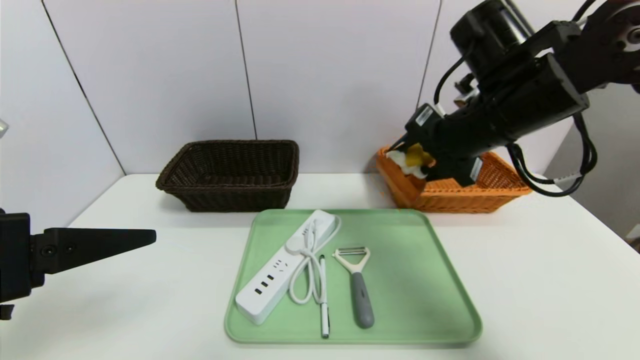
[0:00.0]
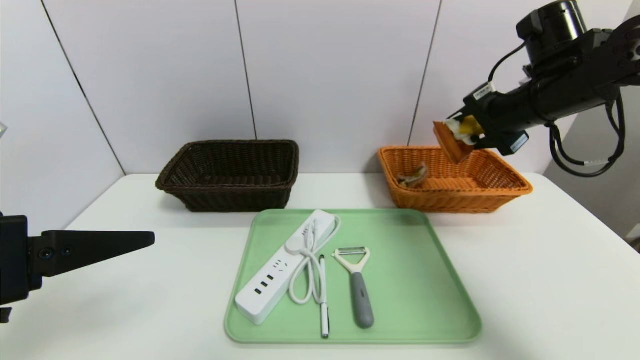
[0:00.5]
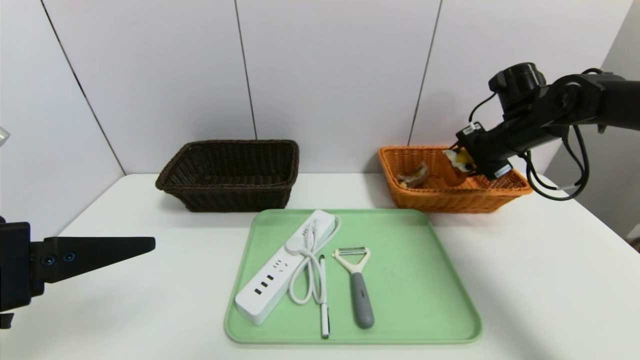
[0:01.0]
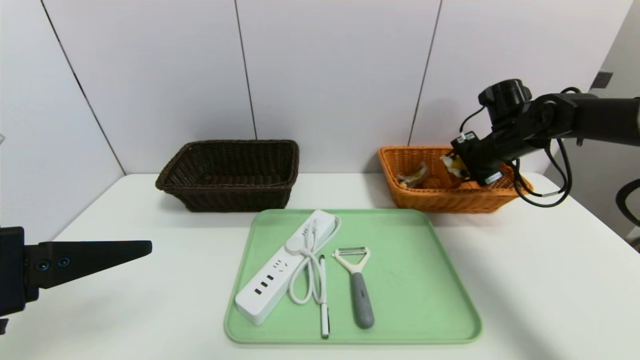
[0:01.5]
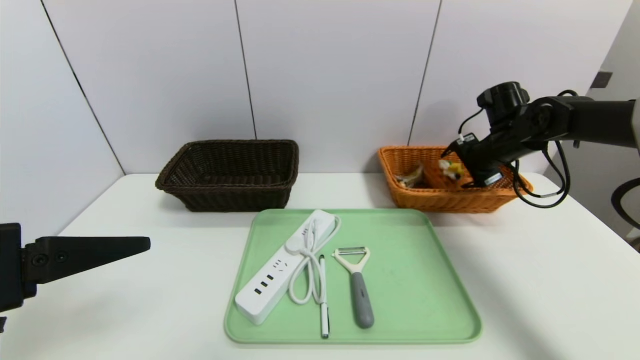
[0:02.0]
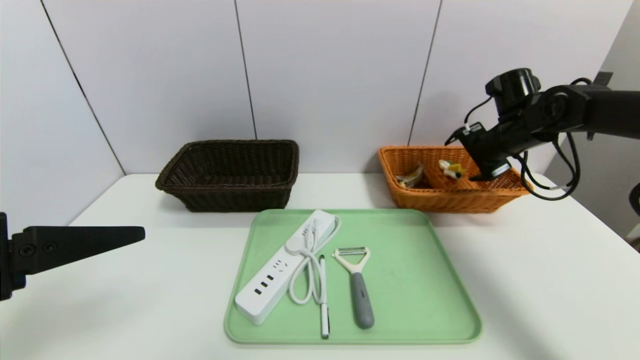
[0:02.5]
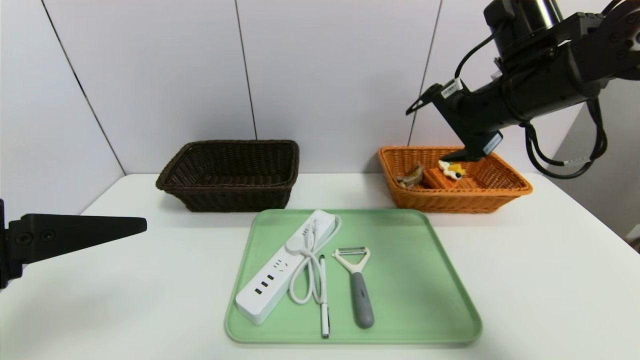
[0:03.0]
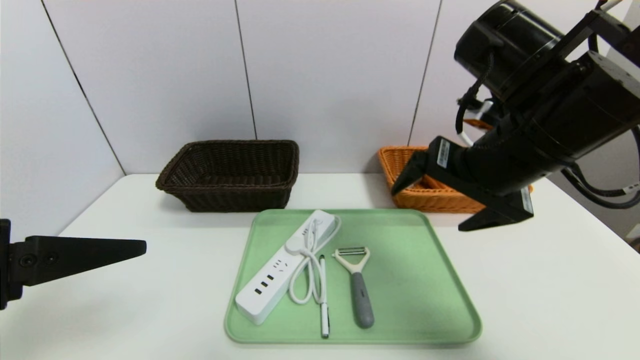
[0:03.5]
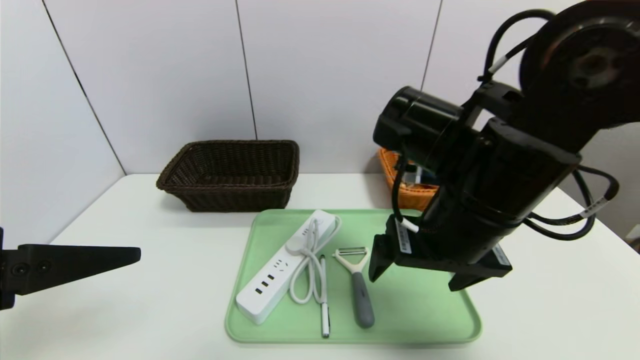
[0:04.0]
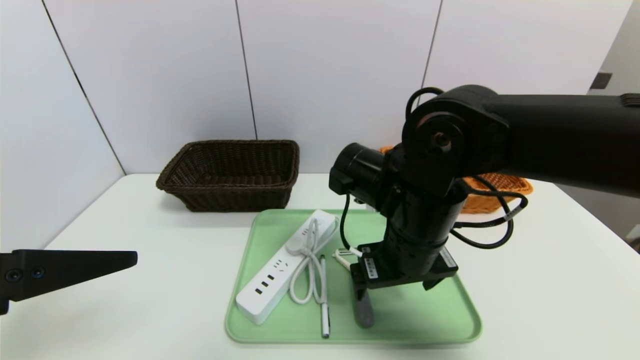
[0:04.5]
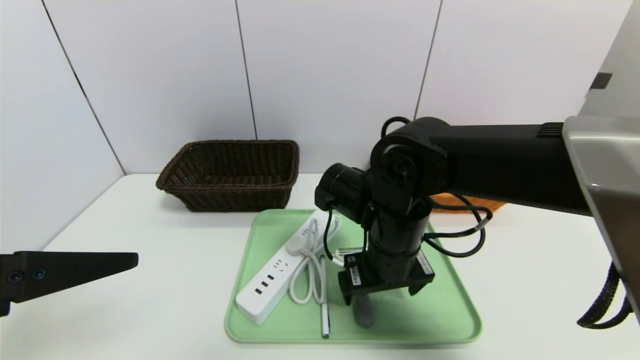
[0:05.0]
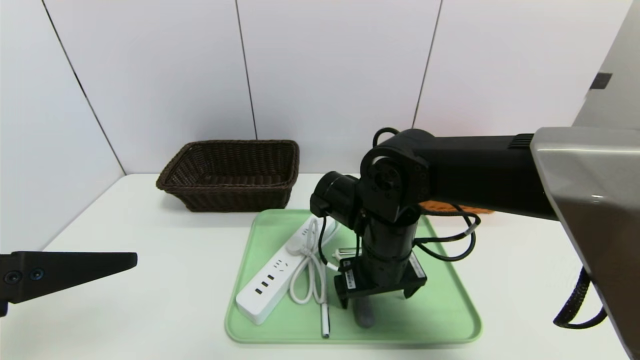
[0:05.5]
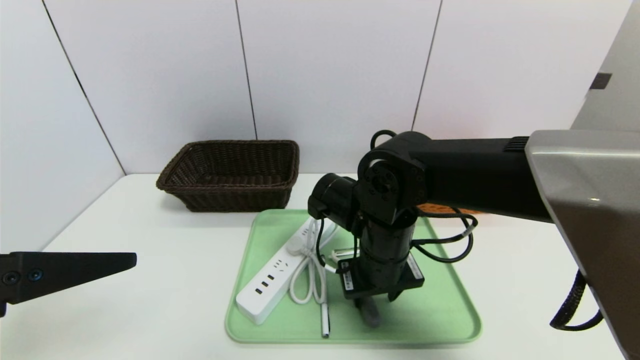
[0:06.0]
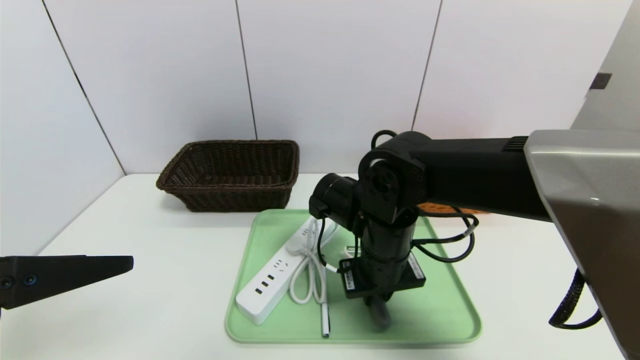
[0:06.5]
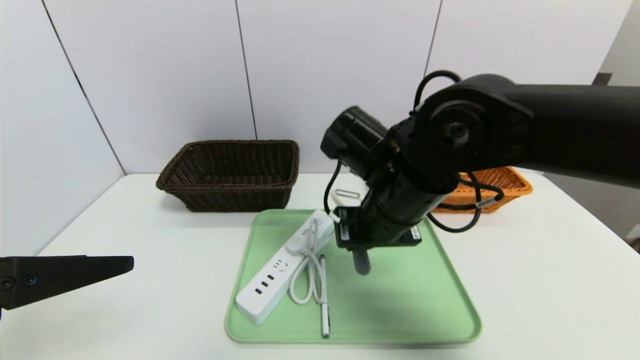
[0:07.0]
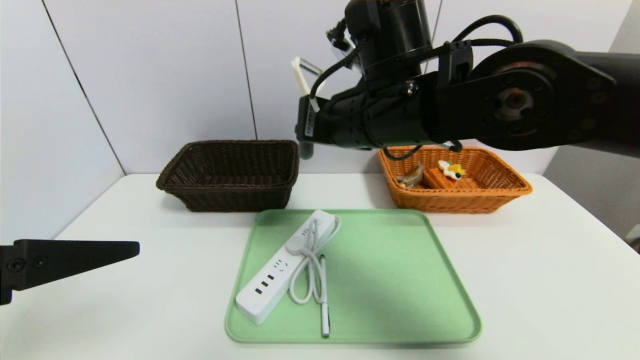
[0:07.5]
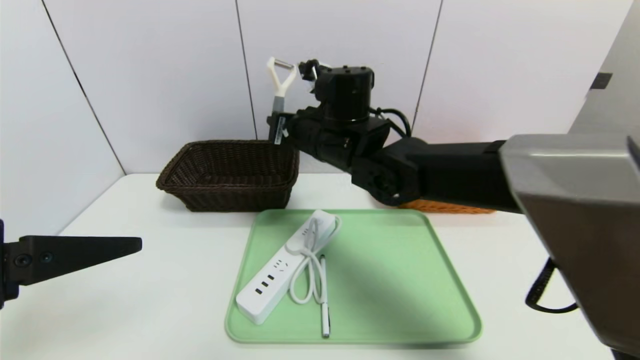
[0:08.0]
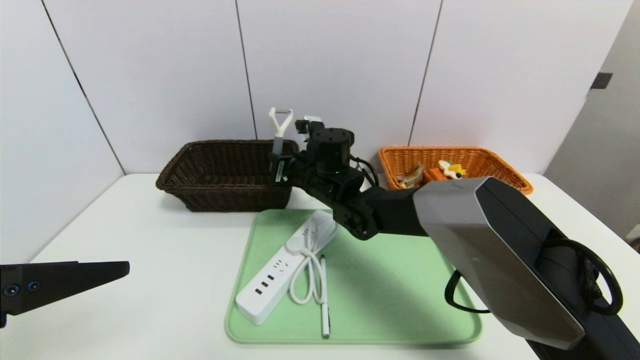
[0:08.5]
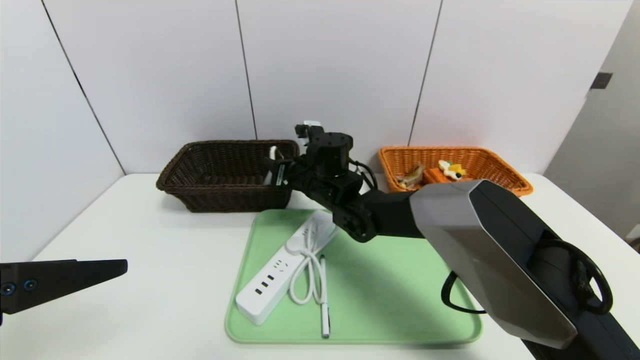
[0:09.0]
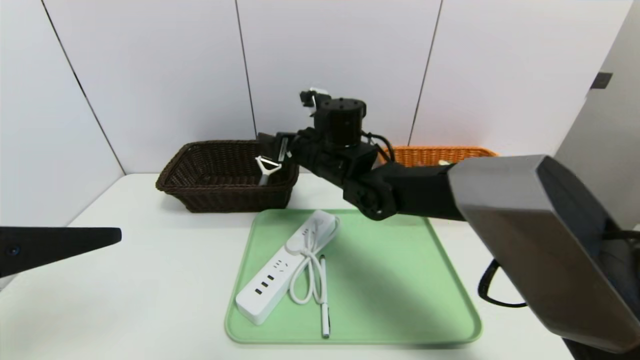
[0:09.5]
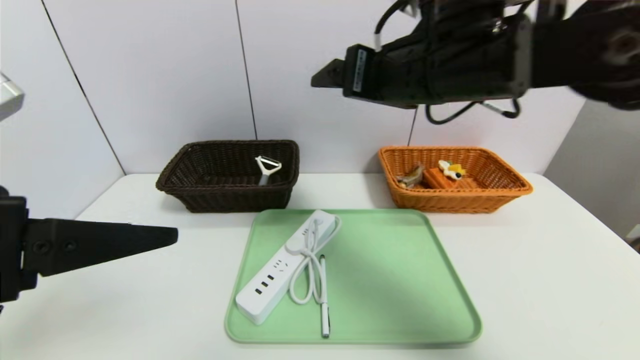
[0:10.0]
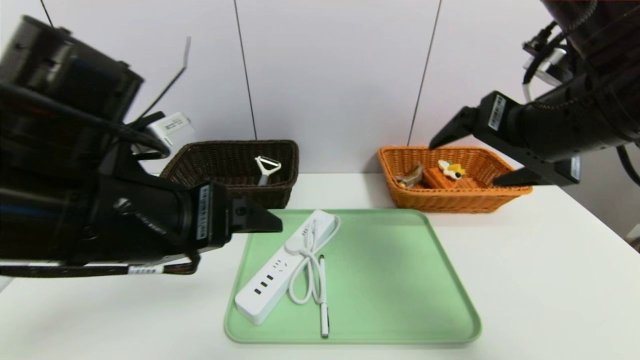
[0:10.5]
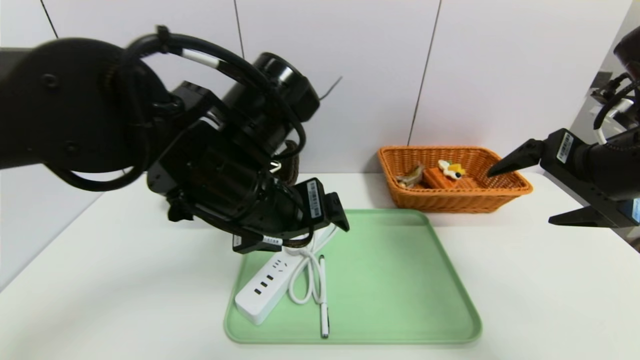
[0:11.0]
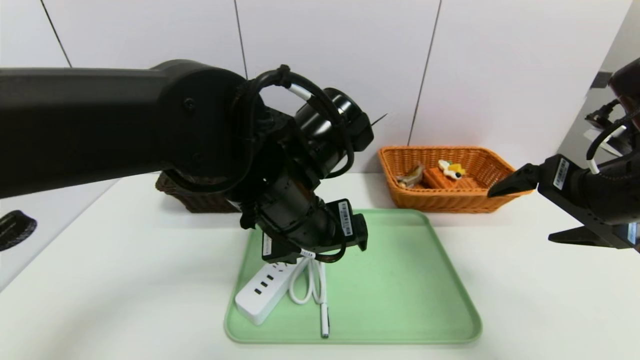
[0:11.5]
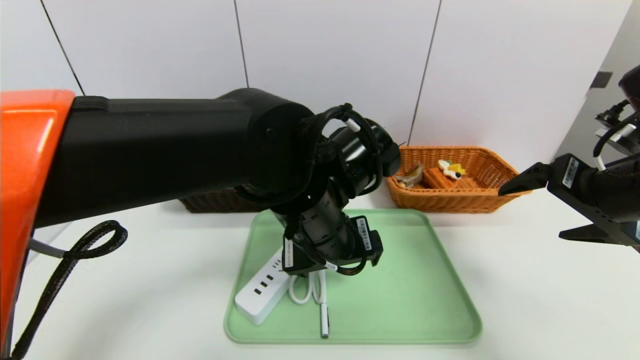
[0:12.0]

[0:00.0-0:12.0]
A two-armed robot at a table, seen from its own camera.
Task of the whole recording: place the food in the right basket with the right gripper, and place the non food items in the left basket with the left gripper.
Step, 0:00.0 to 0:02.0: Grasp the waffle and put it in the right basket.
0:00.0 to 0:02.0: The right gripper shifts some 25 cm forward, to the right and downward.
0:02.0 to 0:04.0: The right gripper goes about 30 cm backward and to the left.
0:04.0 to 0:06.0: The right gripper is displaced downward, to the left and forward by about 10 cm, and closes up.
0:06.0 to 0:08.0: The right gripper is displaced forward, upward and to the left by roughly 15 cm.
0:08.0 to 0:10.0: The right gripper heads upward, to the right and backward, covering approximately 20 cm, and opens.
0:10.0 to 0:12.0: The left gripper goes some 25 cm to the right and forward, while the right gripper travels to the right and downward by roughly 20 cm.

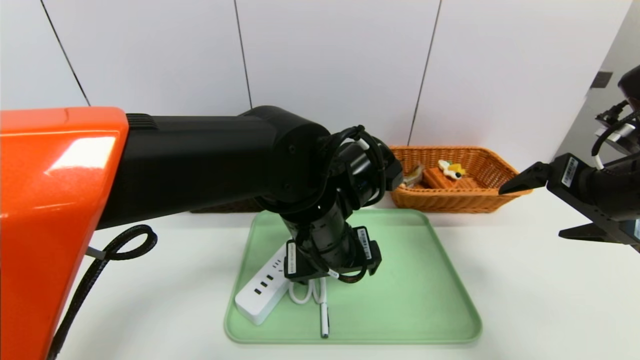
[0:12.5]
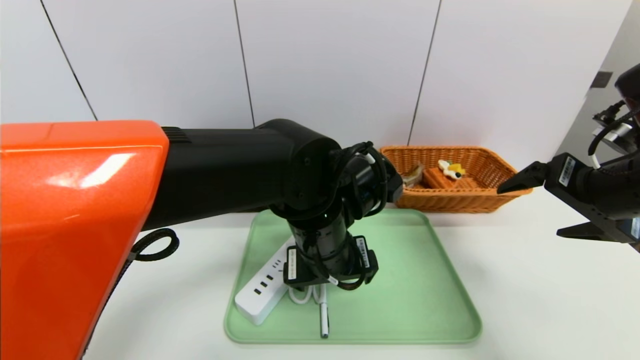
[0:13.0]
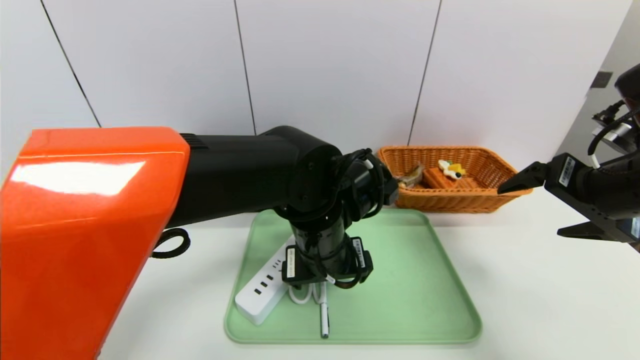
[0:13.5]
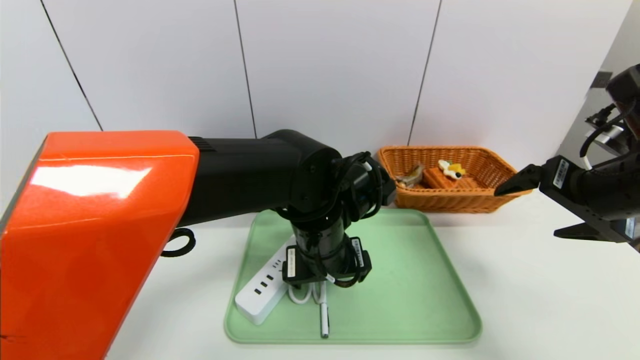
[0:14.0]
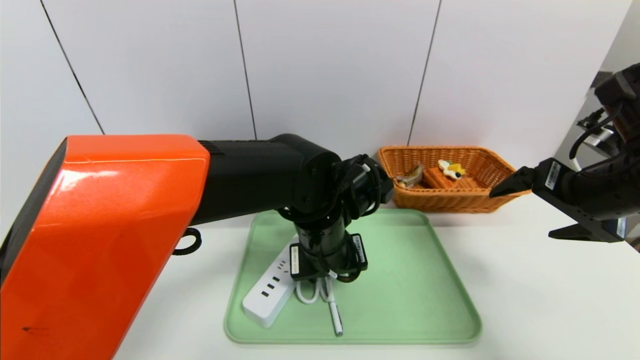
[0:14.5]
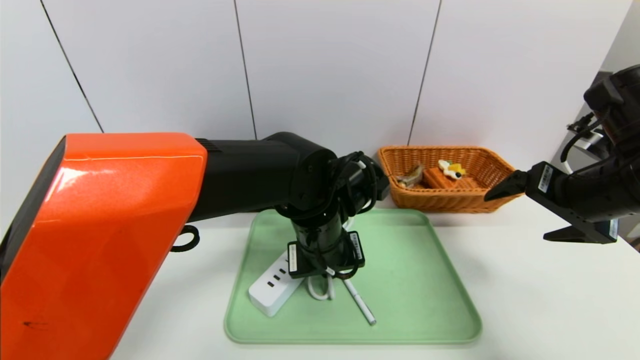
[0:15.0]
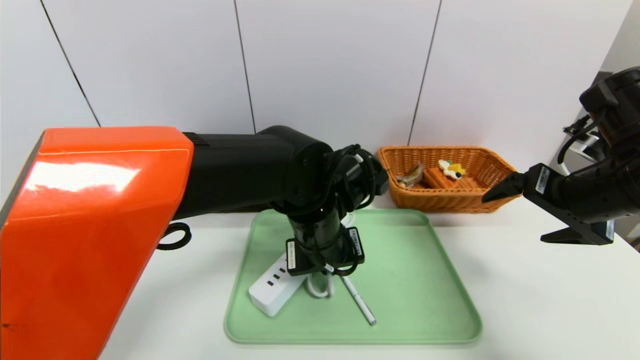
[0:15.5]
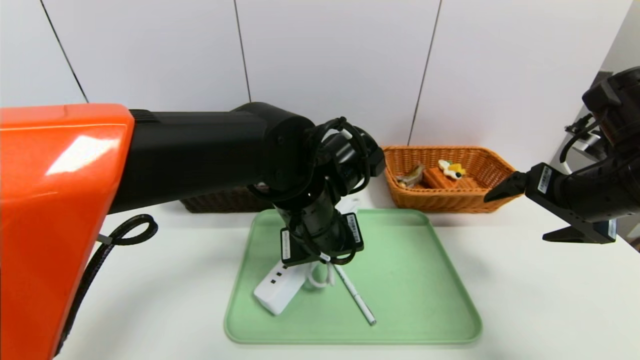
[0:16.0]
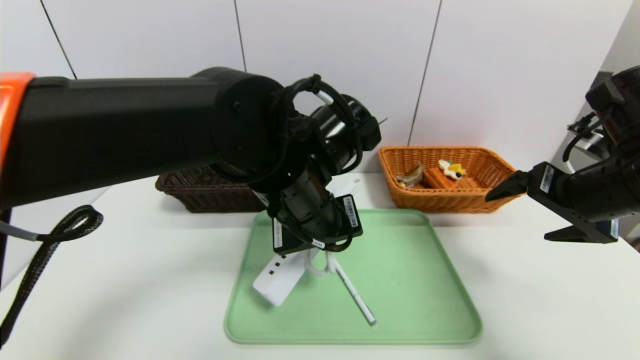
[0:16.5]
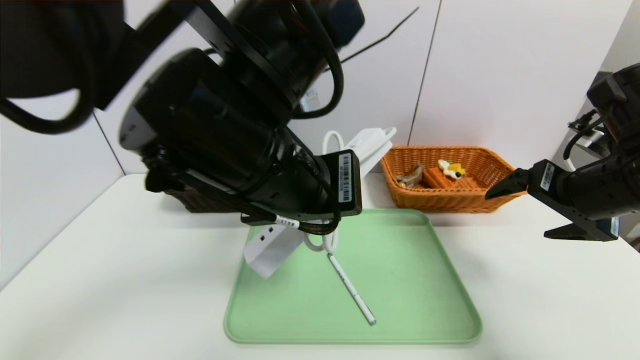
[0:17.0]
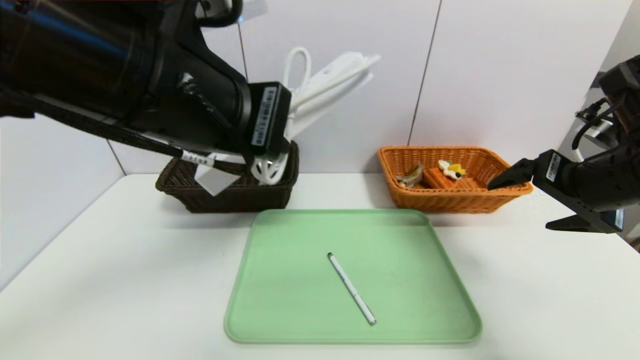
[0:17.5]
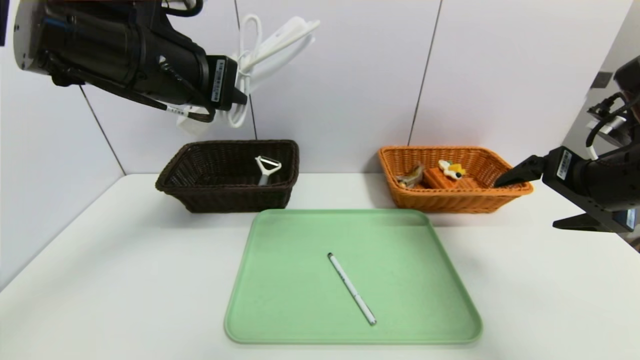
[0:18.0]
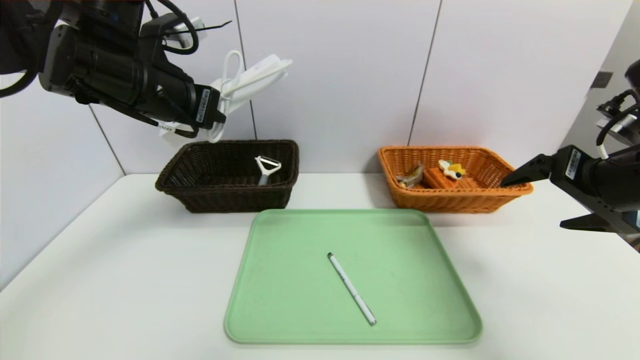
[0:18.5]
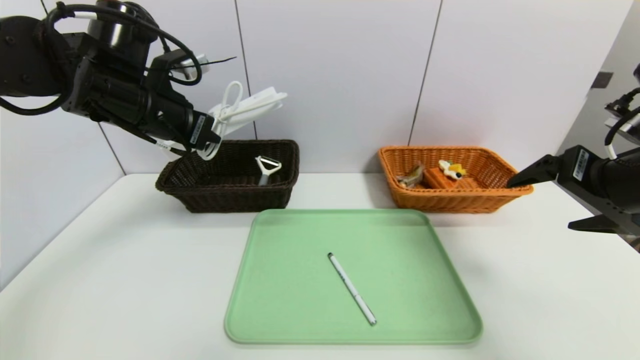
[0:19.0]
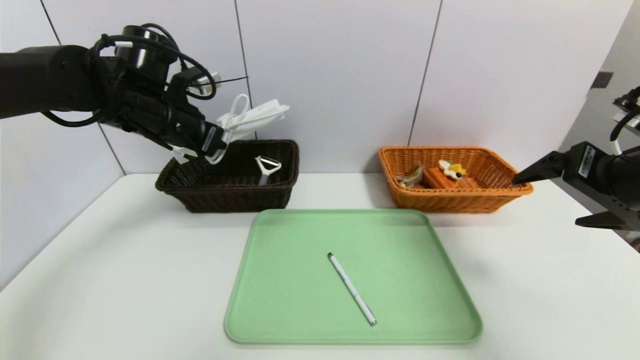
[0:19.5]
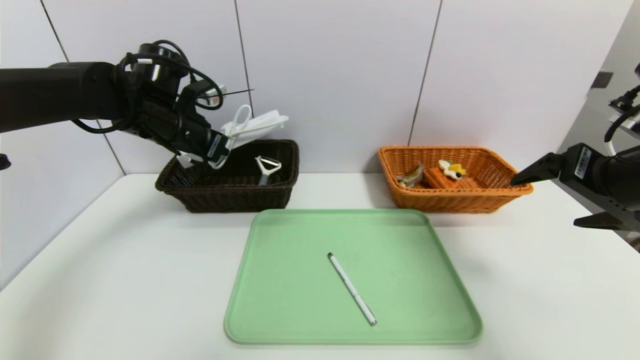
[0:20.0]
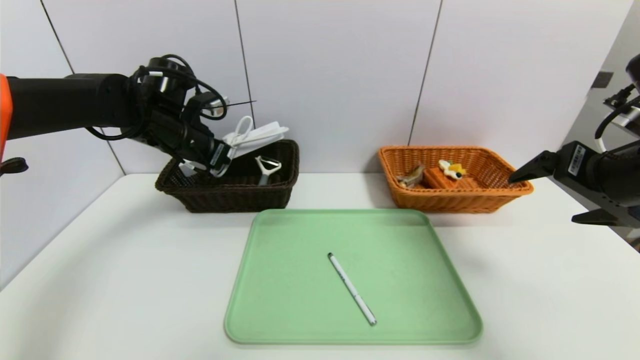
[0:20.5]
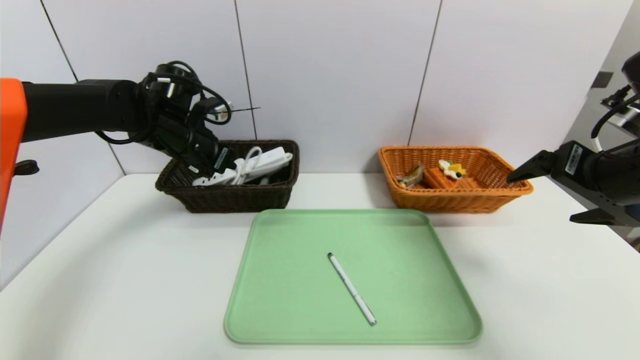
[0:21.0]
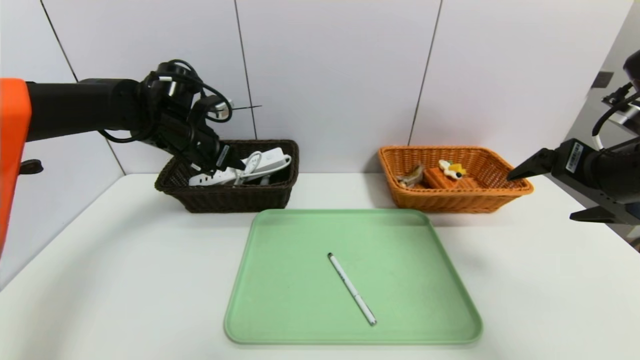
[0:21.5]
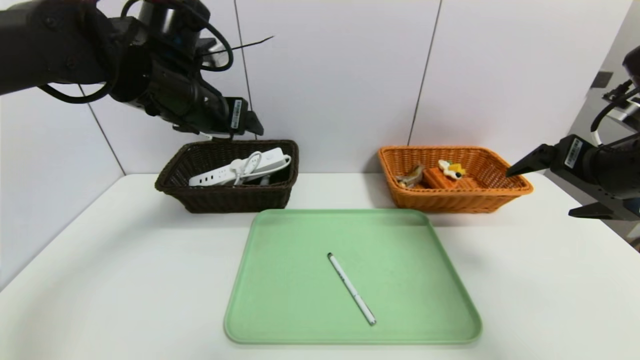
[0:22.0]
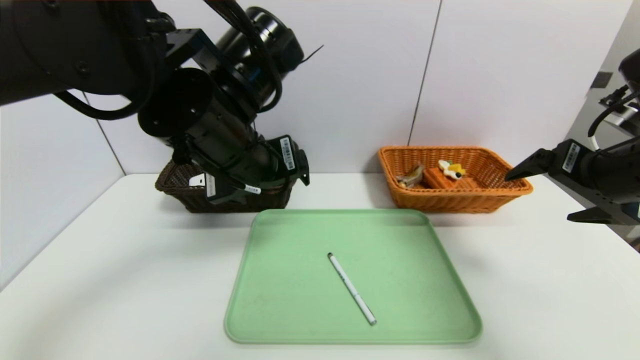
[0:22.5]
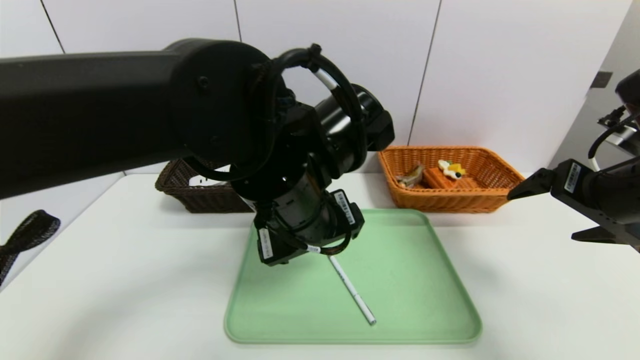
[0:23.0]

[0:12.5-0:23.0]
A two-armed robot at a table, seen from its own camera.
Task of the whole recording: place the food in the right basket with the right gripper, and place the non food items in the left basket with the left gripper.
Step, 0:12.5 to 0:21.5: Grasp the power strip and put it in the left basket.
0:12.5 to 0:14.5: The left gripper closes.
0:14.5 to 0:16.5: The left gripper travels upward by approximately 10 cm, and closes its fingers.
0:16.5 to 0:19.0: The left gripper moves to the left and forward, some 20 cm.
0:19.0 to 0:21.0: The left gripper travels forward and downward by some 10 cm.
0:21.0 to 0:23.0: The left gripper goes approximately 30 cm to the right and backward, and opens up.
